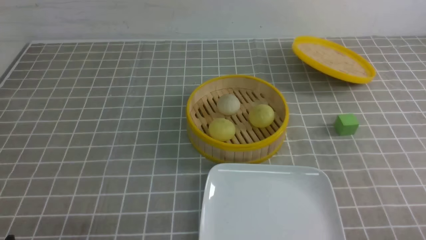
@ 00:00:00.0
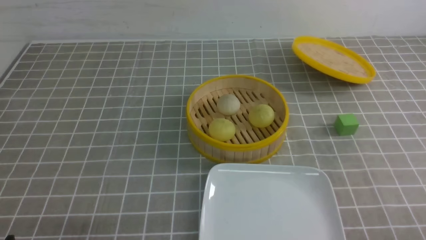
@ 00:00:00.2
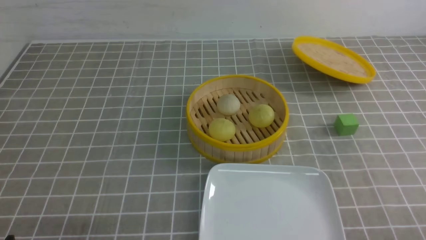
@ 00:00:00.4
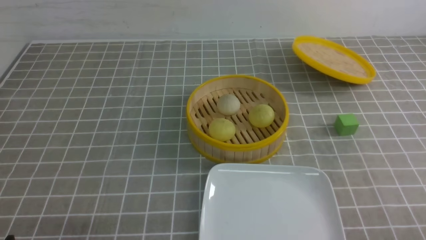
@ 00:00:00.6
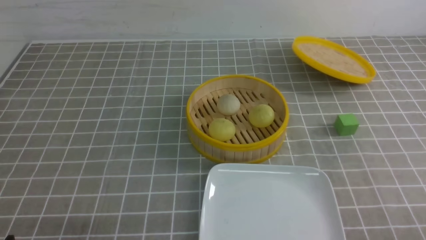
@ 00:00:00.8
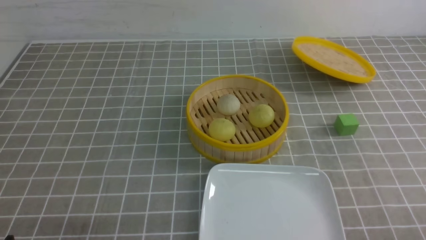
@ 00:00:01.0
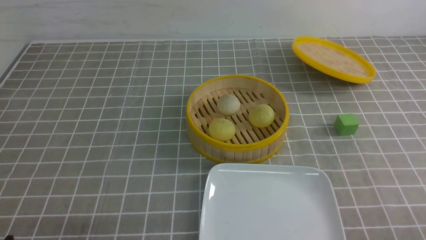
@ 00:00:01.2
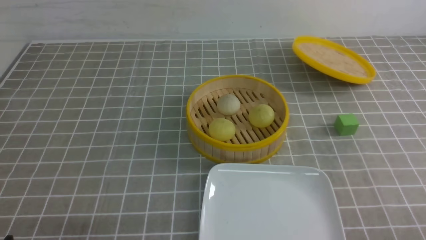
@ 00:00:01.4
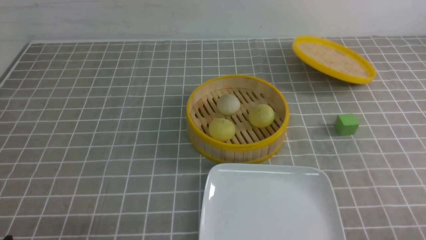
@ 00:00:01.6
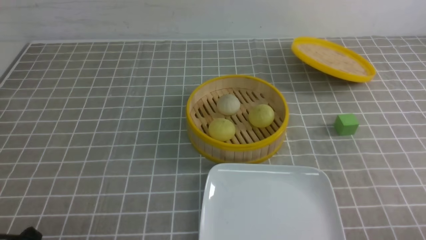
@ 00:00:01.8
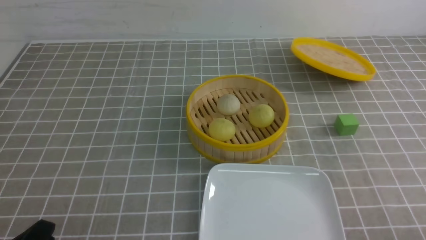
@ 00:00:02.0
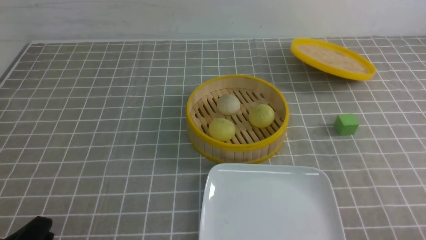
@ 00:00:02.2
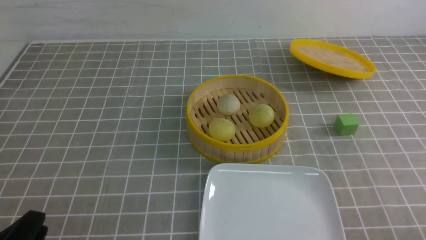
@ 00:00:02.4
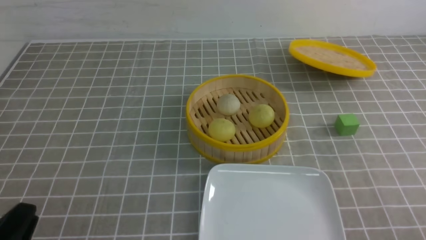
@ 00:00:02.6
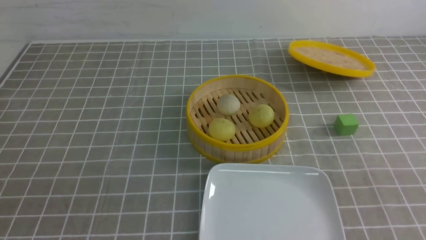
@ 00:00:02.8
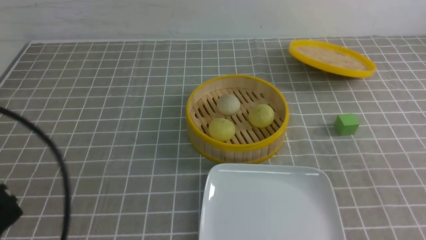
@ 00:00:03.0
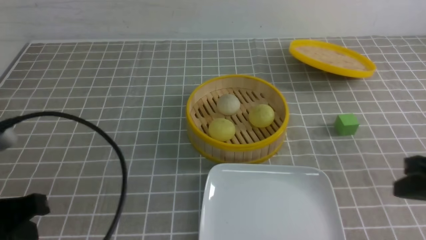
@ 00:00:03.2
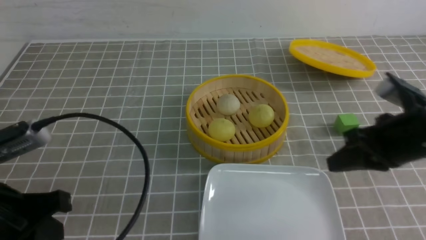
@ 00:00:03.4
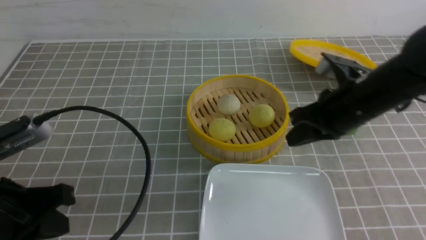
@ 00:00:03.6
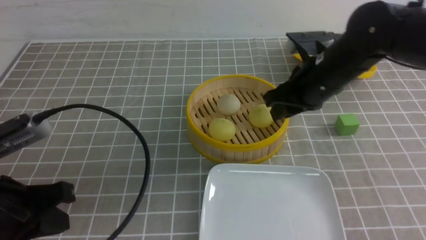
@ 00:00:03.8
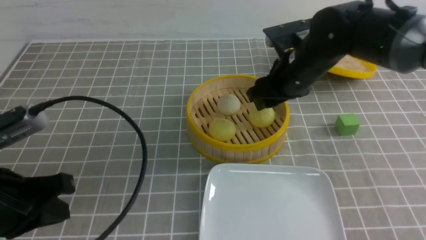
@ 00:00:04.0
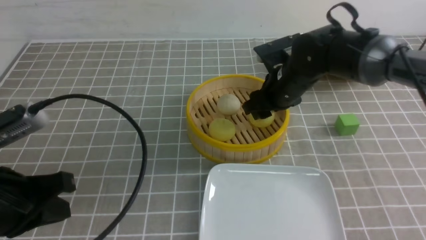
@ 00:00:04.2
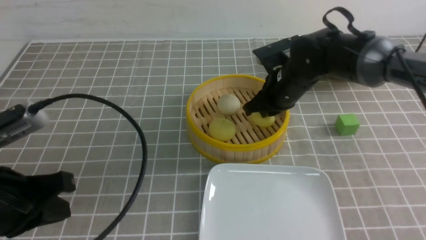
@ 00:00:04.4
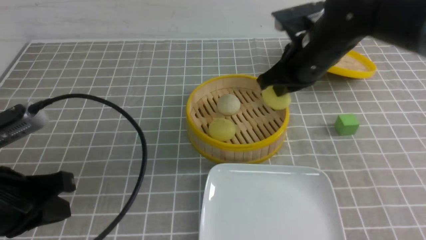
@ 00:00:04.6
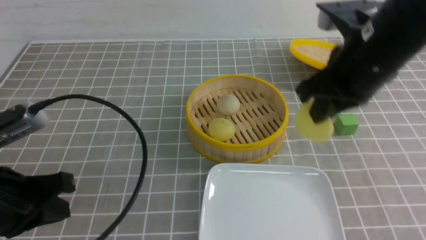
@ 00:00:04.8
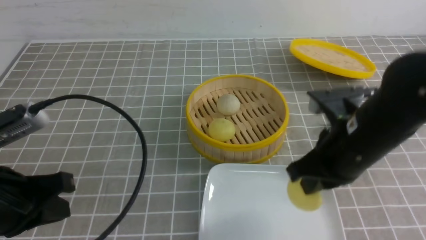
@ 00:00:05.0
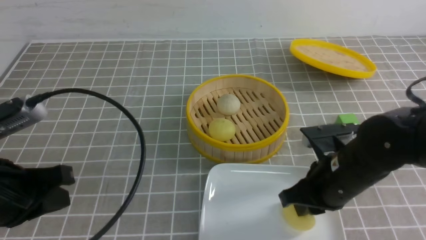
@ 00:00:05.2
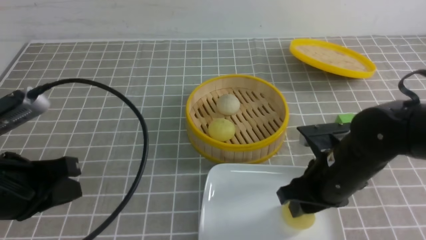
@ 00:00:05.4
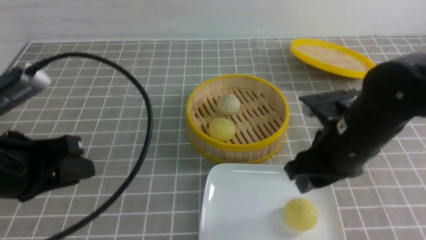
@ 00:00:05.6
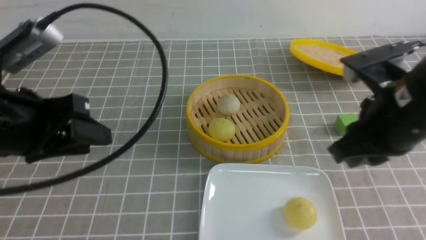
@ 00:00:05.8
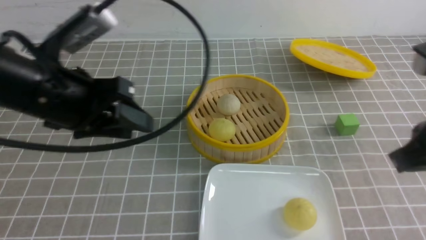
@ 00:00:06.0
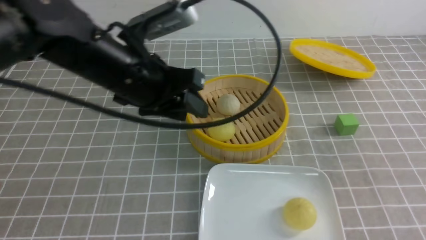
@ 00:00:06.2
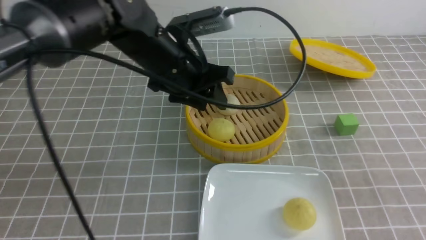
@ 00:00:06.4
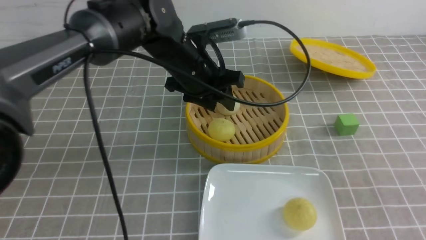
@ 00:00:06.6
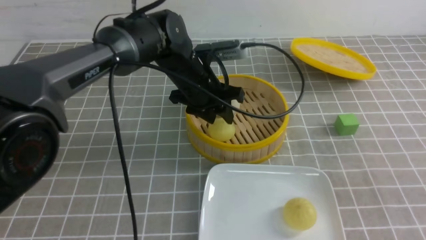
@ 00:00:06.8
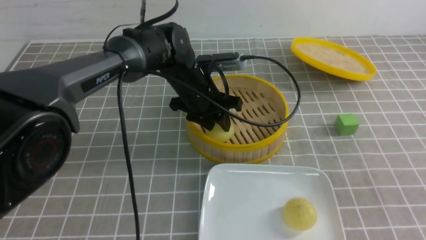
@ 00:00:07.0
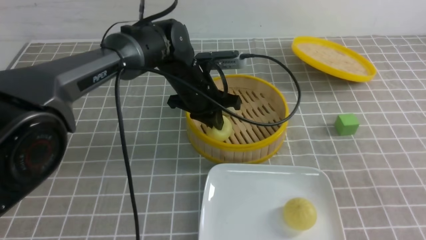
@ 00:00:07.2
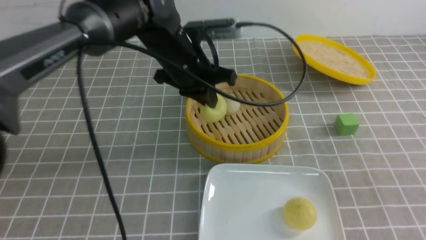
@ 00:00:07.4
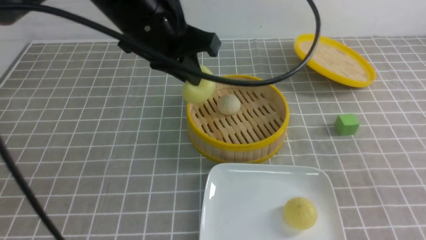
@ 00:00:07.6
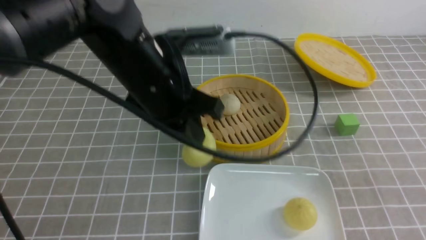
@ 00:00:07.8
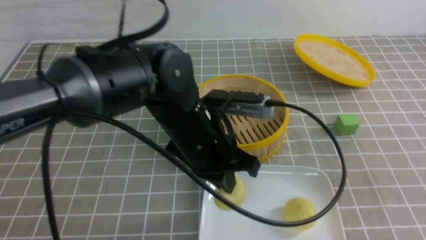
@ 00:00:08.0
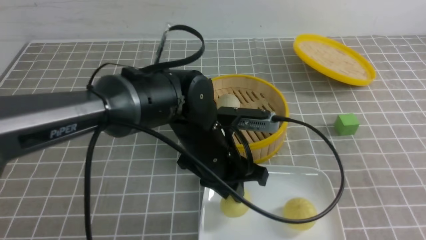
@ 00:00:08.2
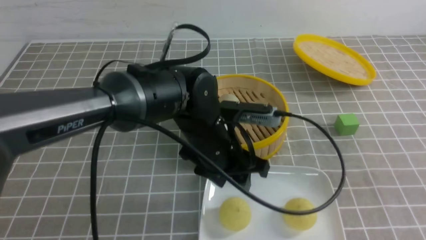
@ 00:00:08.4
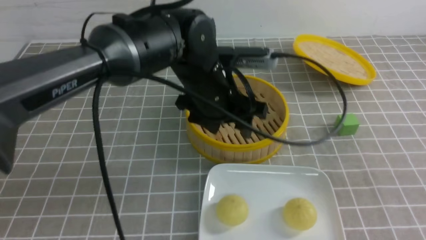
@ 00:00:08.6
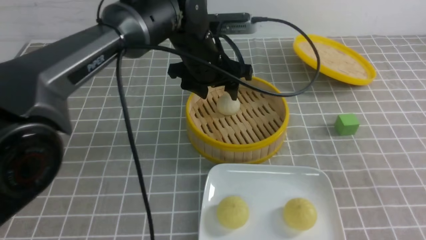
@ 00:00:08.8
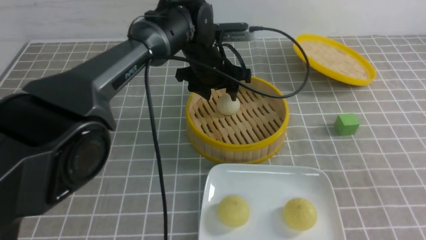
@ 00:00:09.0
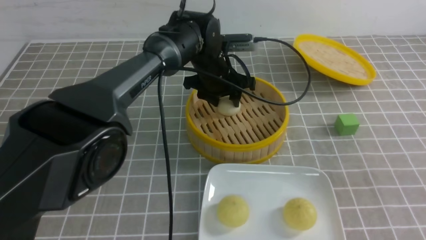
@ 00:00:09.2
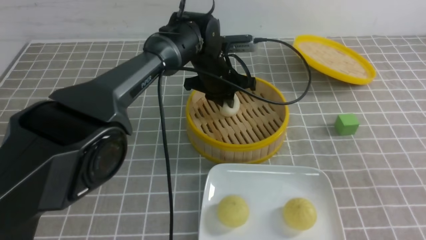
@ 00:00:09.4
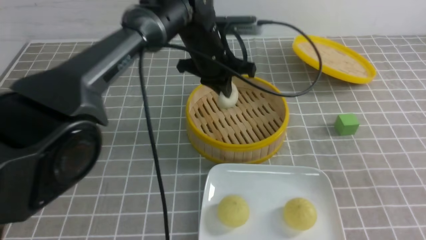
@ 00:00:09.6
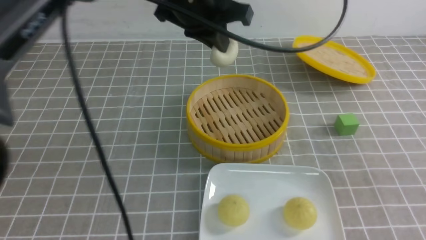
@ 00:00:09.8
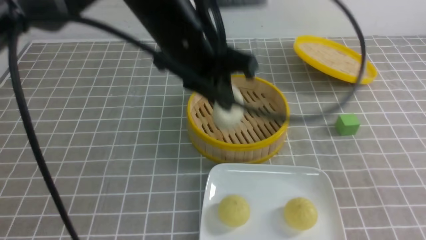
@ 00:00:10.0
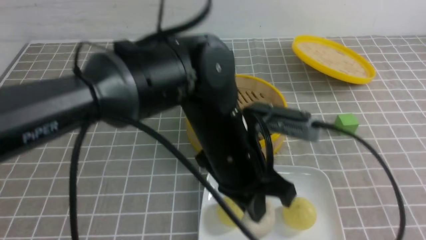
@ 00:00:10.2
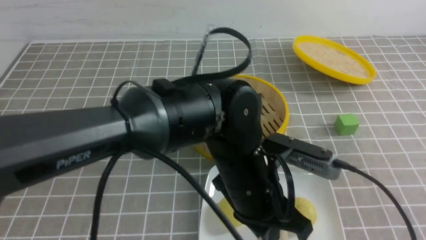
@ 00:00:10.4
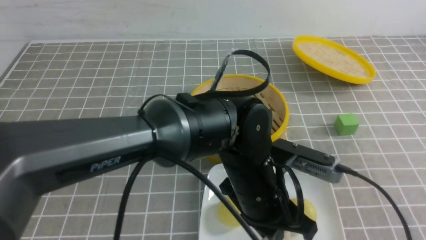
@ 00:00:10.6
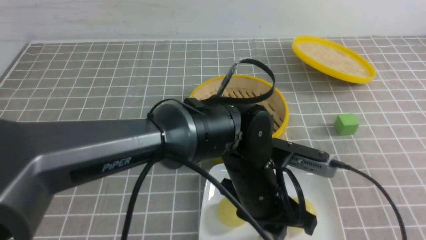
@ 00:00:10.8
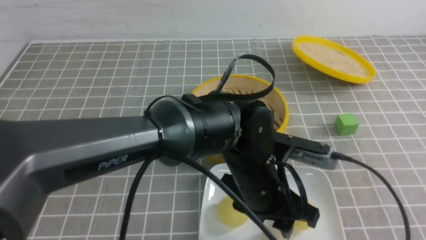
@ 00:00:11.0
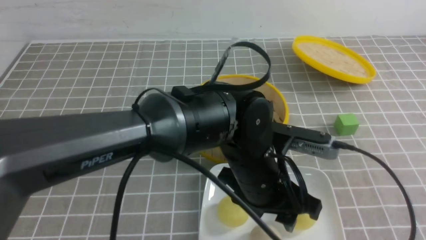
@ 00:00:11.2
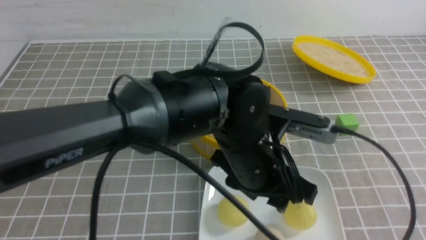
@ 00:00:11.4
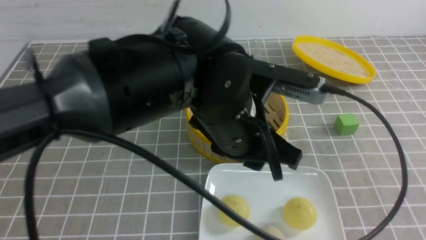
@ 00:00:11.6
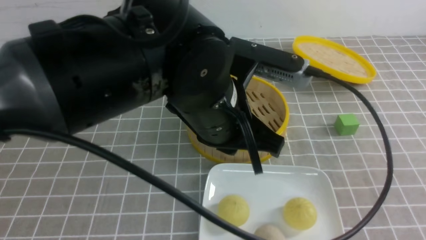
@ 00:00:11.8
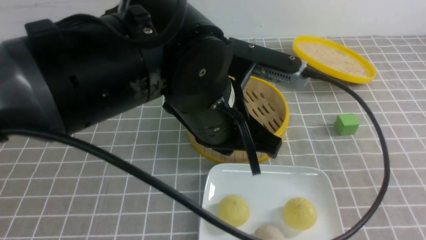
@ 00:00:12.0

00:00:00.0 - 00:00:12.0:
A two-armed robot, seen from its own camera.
Step, 00:00:00.0 - 00:00:04.4: use the right arm to grab the steamed stuffed bun that is closest to it.
Step, 00:00:04.6 - 00:00:05.4: use the right arm to put the steamed stuffed bun into the plate.
Step, 00:00:05.6 - 00:00:07.2: use the left arm to grab the steamed stuffed bun that is closest to it.
Step, 00:00:07.4 - 00:00:08.2: use the left arm to put the steamed stuffed bun into the plate.
Step, 00:00:08.4 - 00:00:09.4: use the left arm to grab the steamed stuffed bun that is closest to it.
Step, 00:00:09.6 - 00:00:11.0: use the left arm to put the steamed stuffed bun into the plate.
00:00:01.6 - 00:00:03.0: The left gripper goes some 10 cm upward, and closes.
00:00:03.0 - 00:00:04.4: The right gripper travels forward and to the left by some 30 cm, and opens up, while the left gripper moves forward, about 5 cm.
00:00:04.4 - 00:00:06.0: The left gripper moves forward, to the right and upward, roughly 15 cm, and opens up. The right gripper is displaced backward, to the right and upward by approximately 25 cm, and closes.
00:00:06.0 - 00:00:07.6: The right gripper shifts roughly 5 cm backward, while the left gripper goes about 10 cm to the right and forward, and closes.
00:00:07.6 - 00:00:09.0: The left gripper goes some 15 cm forward, downward and to the right, and opens.
00:00:09.0 - 00:00:10.4: The left gripper shifts approximately 20 cm backward, and closes. Meanwhile the right gripper goes roughly 10 cm backward and to the right.
00:00:10.4 - 00:00:12.0: The left gripper goes approximately 10 cm upward, and opens, then closes again.

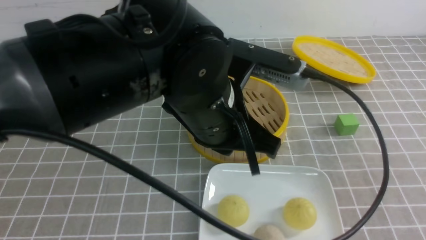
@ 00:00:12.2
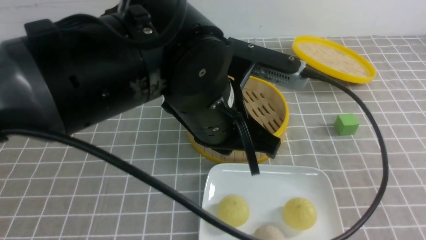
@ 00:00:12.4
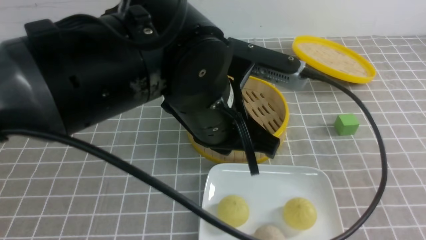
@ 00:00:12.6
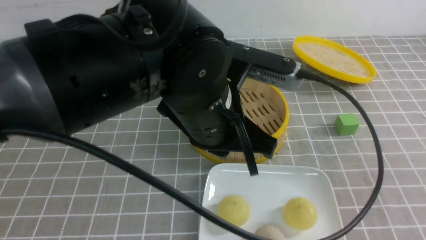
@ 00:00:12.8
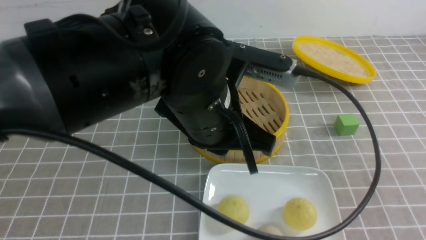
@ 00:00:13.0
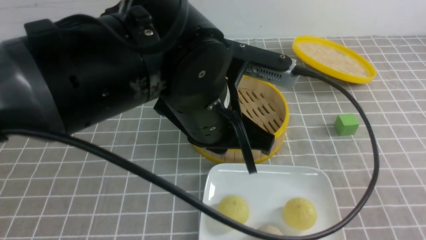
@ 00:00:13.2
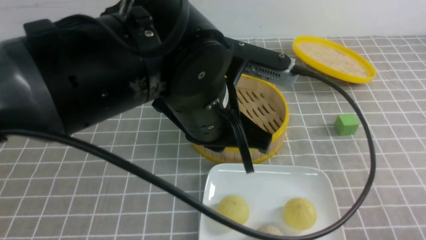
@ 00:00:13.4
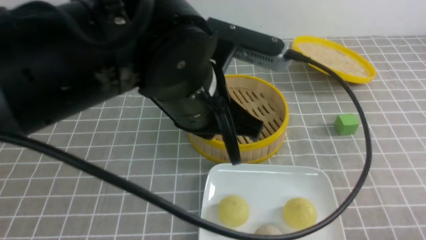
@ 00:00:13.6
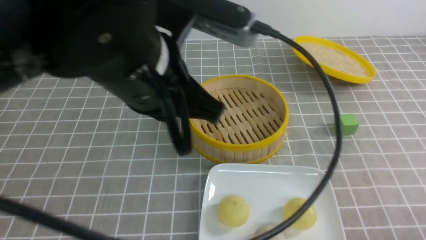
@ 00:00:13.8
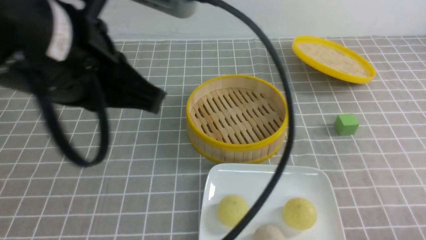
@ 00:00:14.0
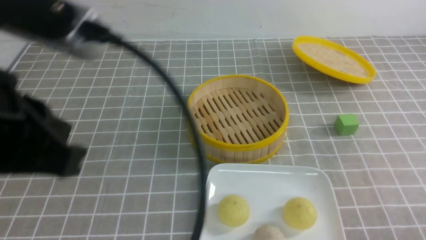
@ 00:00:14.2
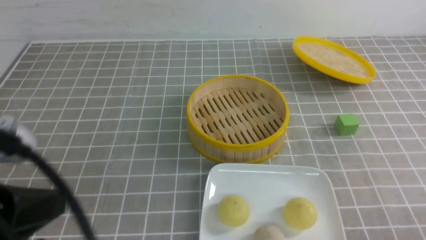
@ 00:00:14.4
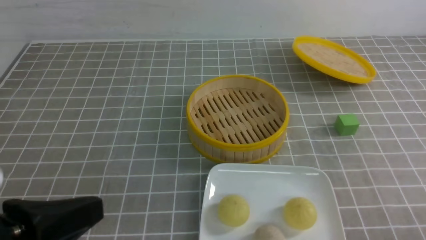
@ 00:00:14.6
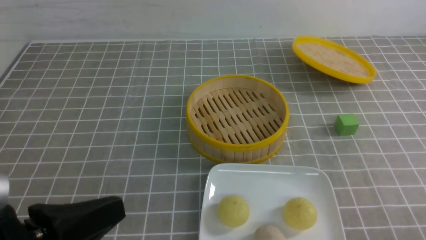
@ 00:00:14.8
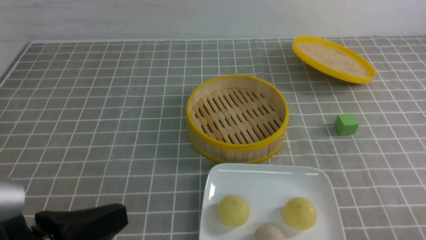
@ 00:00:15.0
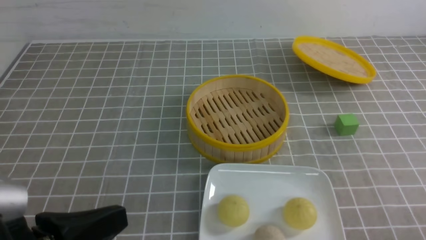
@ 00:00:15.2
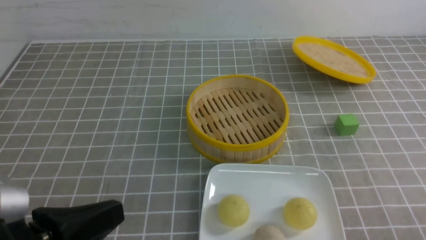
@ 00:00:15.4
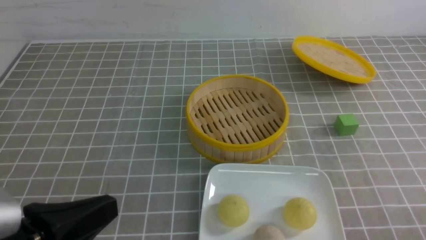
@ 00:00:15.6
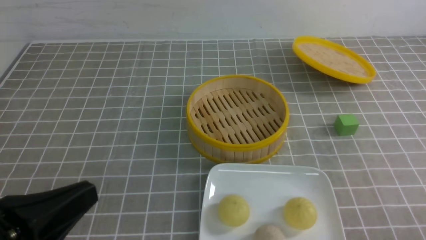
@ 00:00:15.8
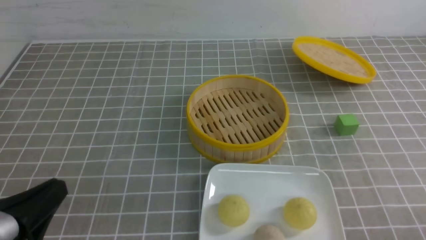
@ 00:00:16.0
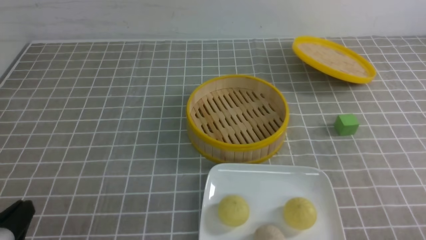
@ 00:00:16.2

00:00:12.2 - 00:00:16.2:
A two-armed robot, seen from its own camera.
00:00:12.2 - 00:00:13.6: The right gripper shifts roughly 10 cm downward.
00:00:13.6 - 00:00:14.8: The left gripper travels to the left and backward by some 20 cm.
00:00:14.8 - 00:00:16.2: The left gripper travels downward and to the left by about 10 cm.
